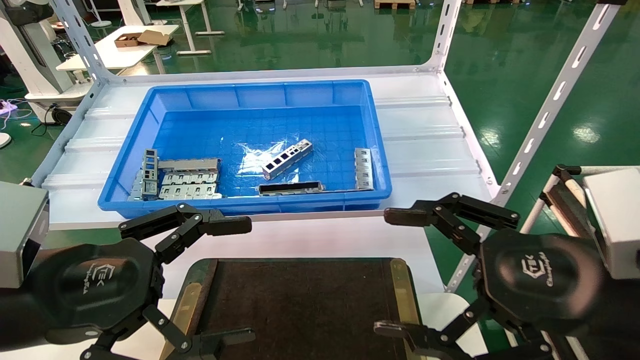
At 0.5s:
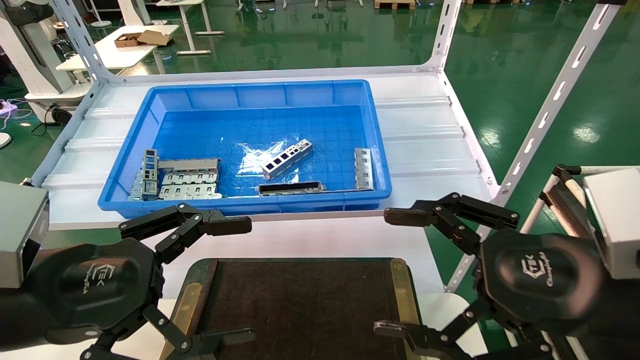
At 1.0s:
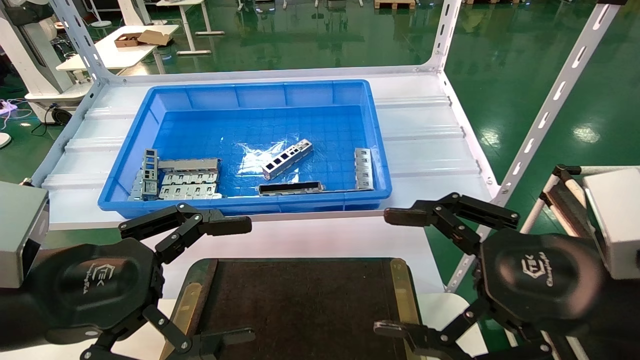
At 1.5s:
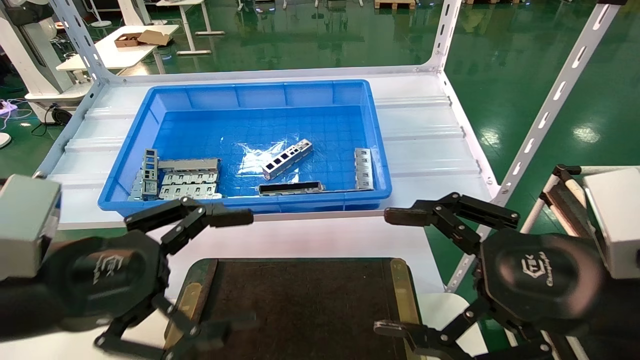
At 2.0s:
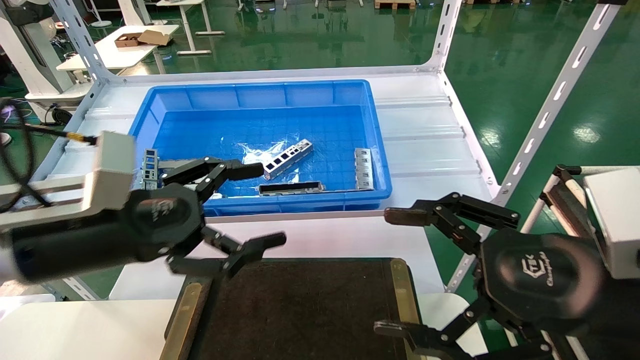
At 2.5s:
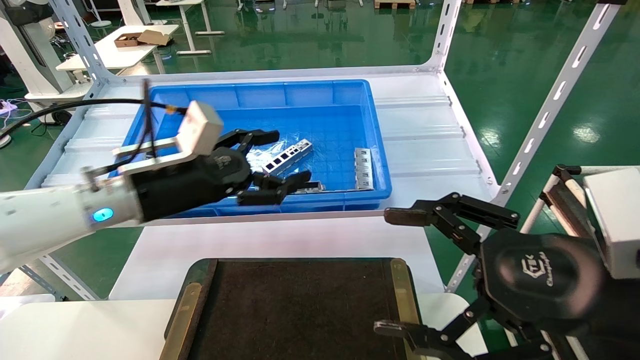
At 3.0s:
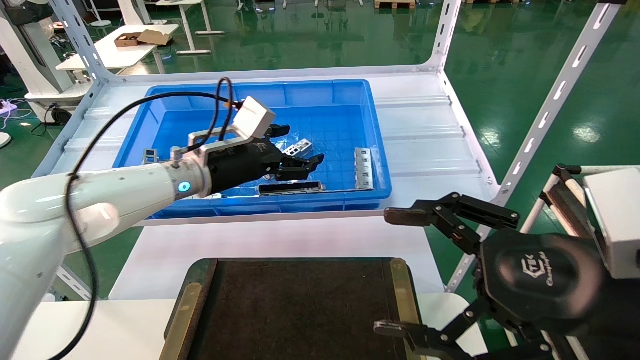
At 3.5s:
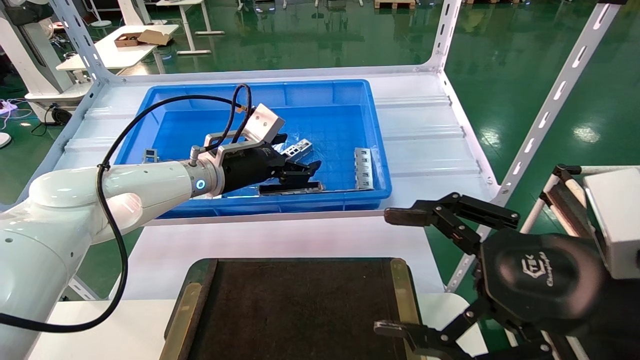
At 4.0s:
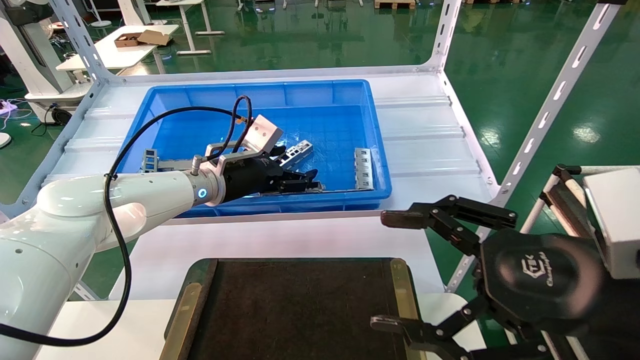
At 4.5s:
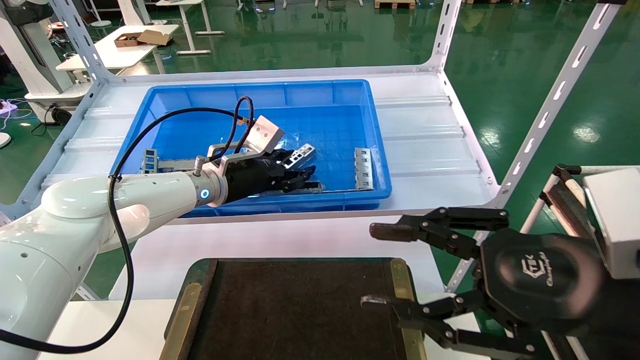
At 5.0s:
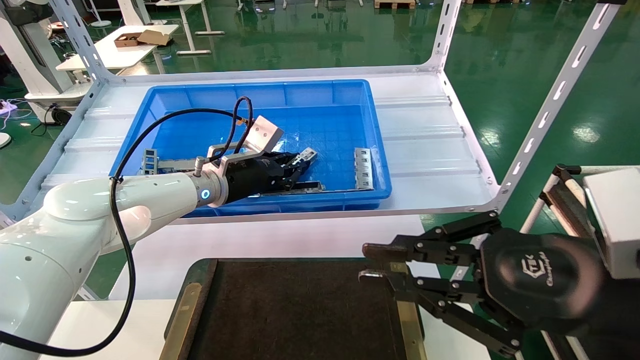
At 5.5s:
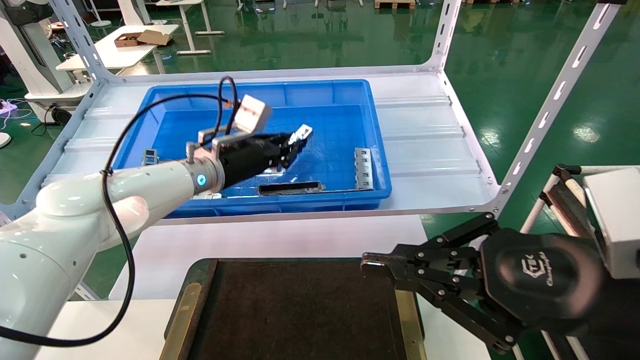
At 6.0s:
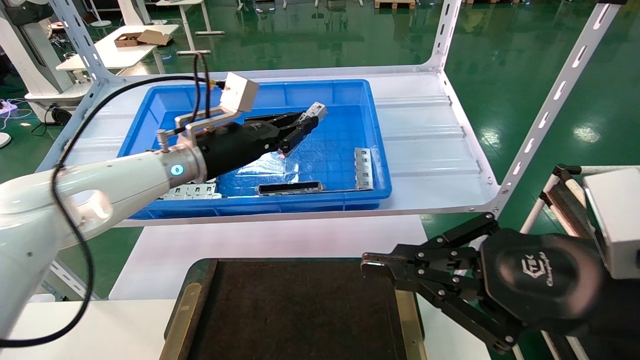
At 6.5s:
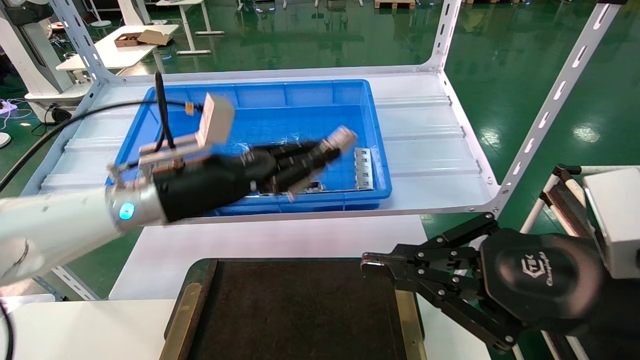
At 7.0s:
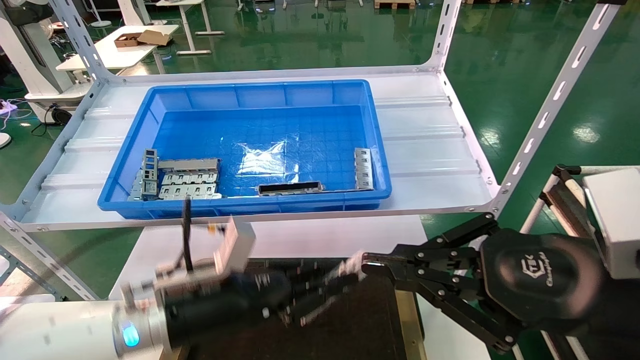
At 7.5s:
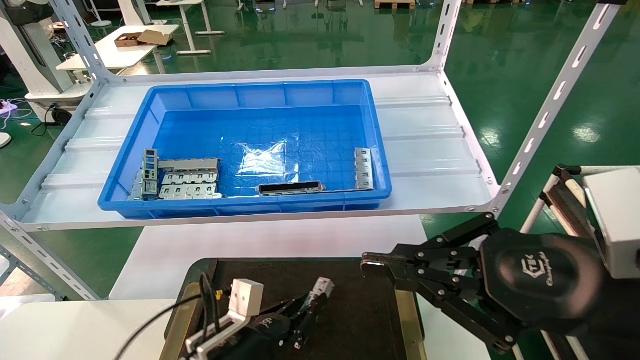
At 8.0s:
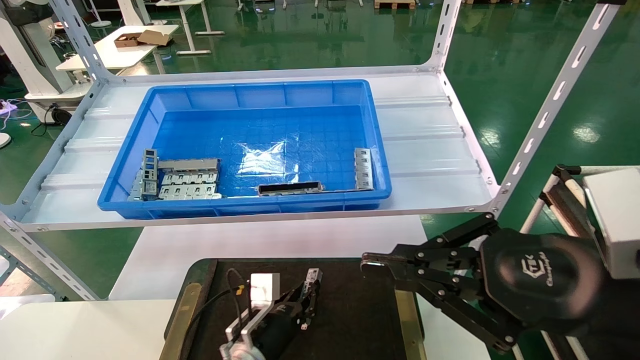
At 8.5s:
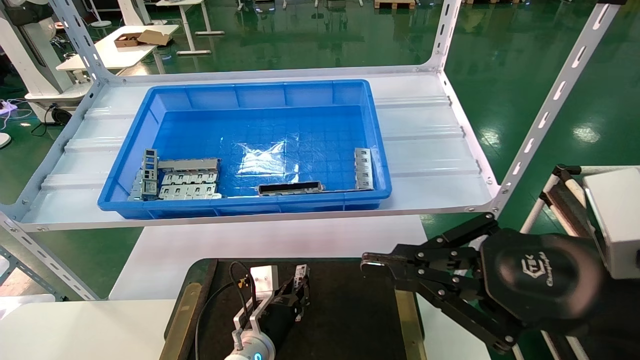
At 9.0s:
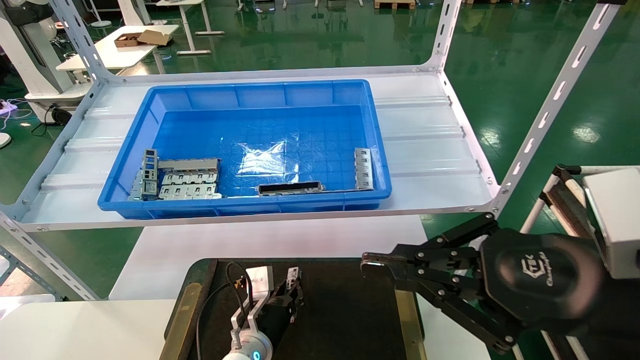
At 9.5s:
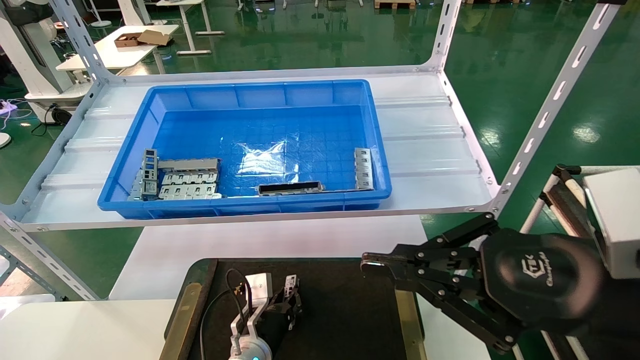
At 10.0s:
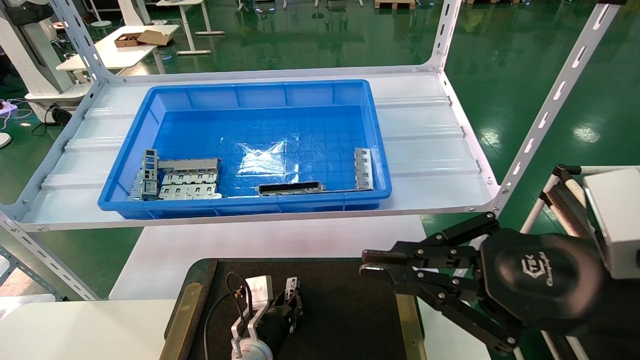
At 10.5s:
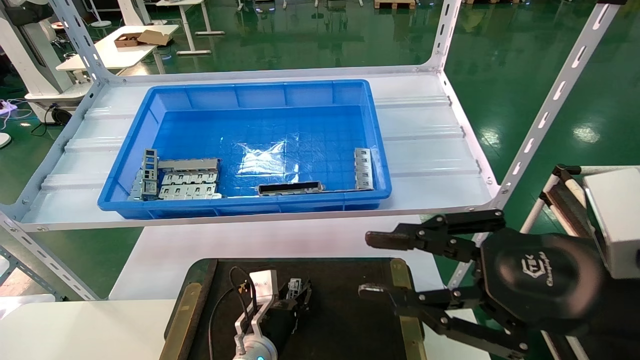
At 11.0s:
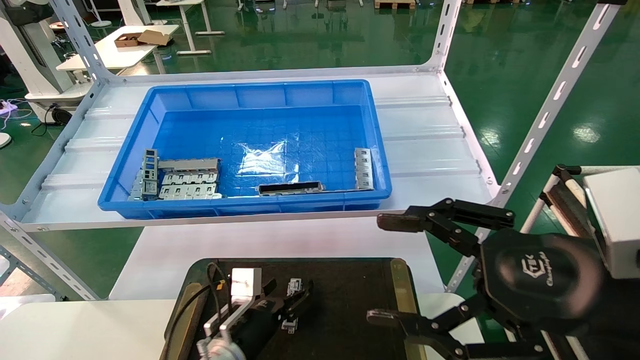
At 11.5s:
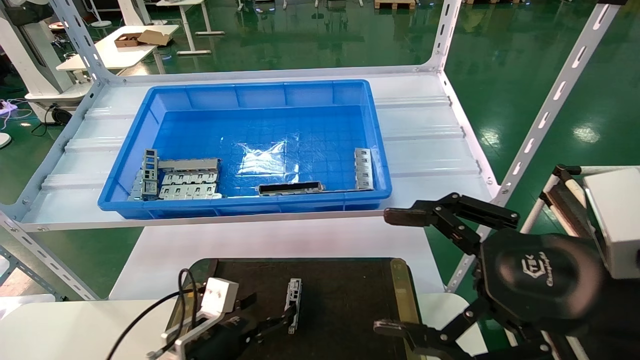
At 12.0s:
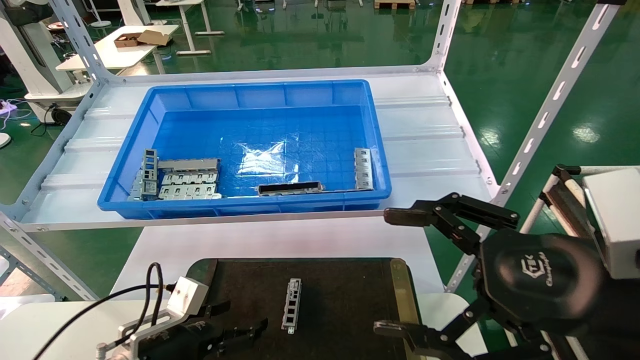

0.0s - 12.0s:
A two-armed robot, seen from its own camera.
Task of the whole recording: Grasp the part with one hand and place it on the black container.
Step, 2.5s - 6.0s: Pick up the front USB bracket from the feeding area.
Step, 6.5s - 10.5s: Place the front USB bracket into the box.
0.0s - 2.0s: The left gripper goes approximately 10 cm forward.
2.0s - 4.0s: The left gripper goes roughly 20 cm forward.
4.0s - 6.0s: The left gripper shifts by some 5 cm, and closes its fingers, while the right gripper closes its fingers.
6.0s - 8.0s: The left gripper goes roughly 30 cm downward.
8.0s - 10.0s: The grippers make only small movements.
10.0s - 12.0s: The right gripper opens up. The left gripper travels to the left, backward and upward by roughly 20 cm, and opens up.
